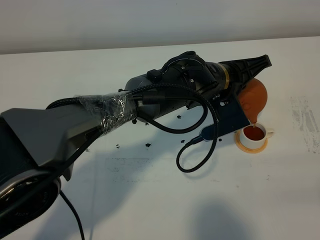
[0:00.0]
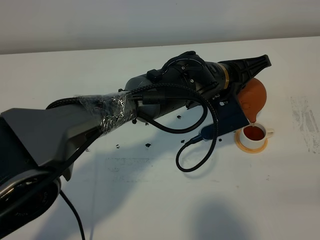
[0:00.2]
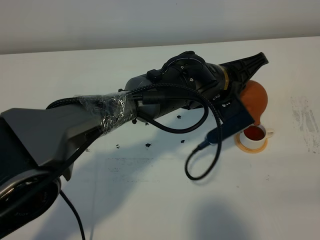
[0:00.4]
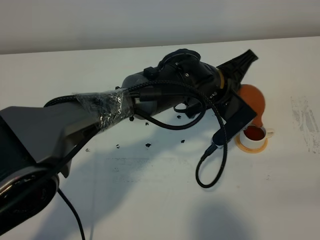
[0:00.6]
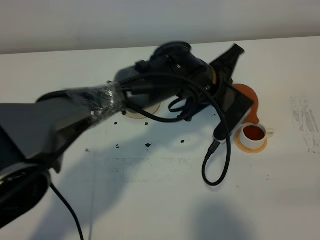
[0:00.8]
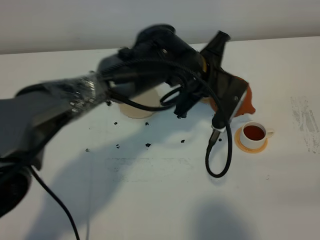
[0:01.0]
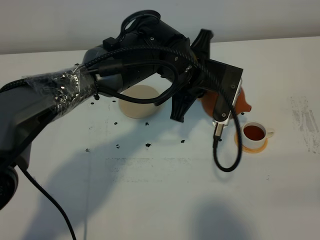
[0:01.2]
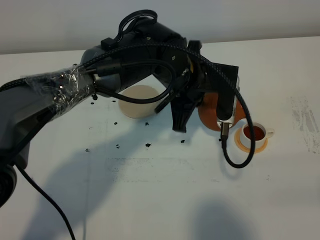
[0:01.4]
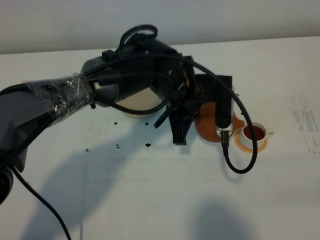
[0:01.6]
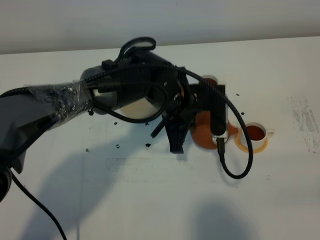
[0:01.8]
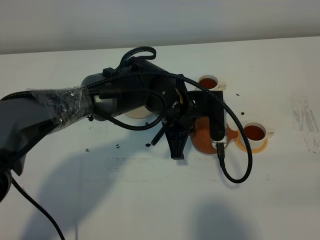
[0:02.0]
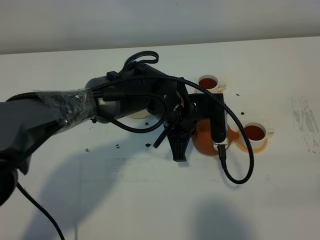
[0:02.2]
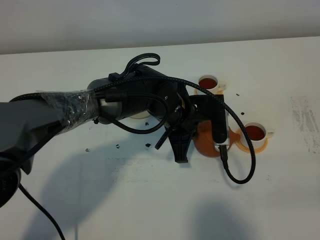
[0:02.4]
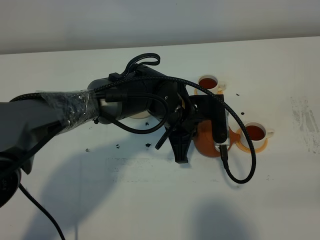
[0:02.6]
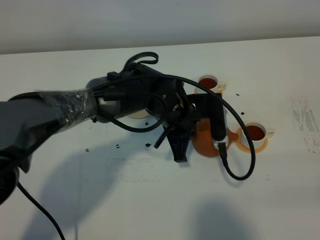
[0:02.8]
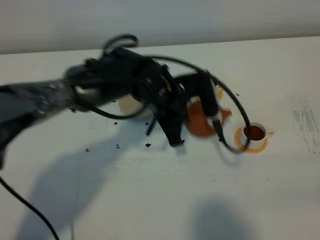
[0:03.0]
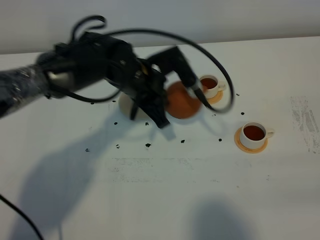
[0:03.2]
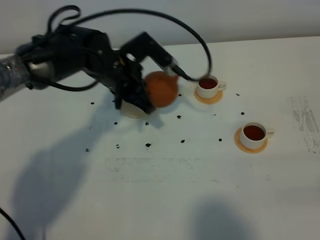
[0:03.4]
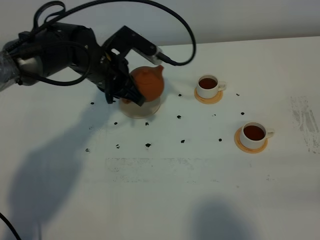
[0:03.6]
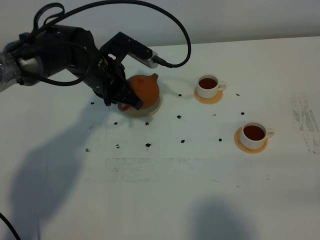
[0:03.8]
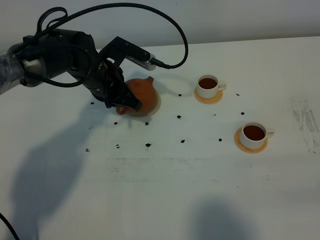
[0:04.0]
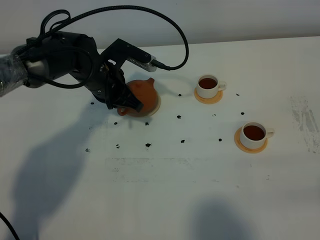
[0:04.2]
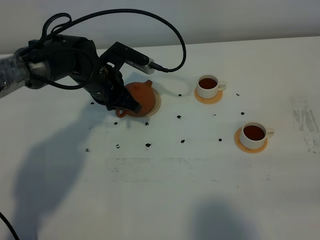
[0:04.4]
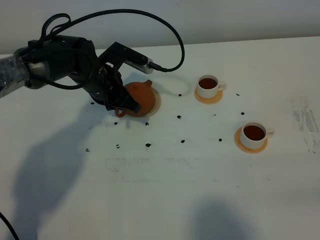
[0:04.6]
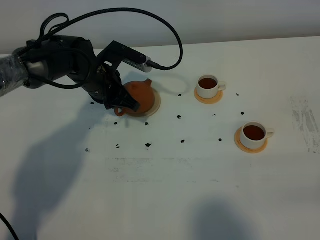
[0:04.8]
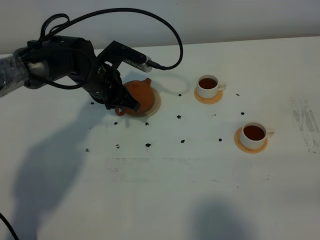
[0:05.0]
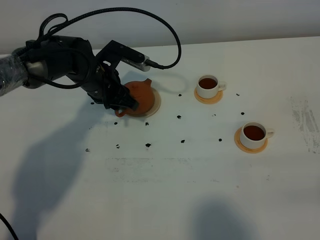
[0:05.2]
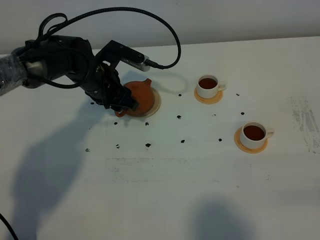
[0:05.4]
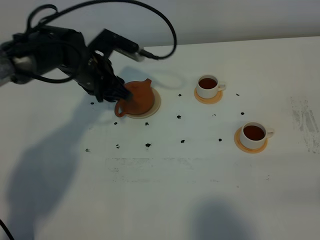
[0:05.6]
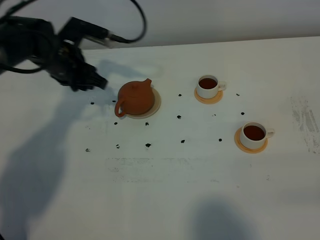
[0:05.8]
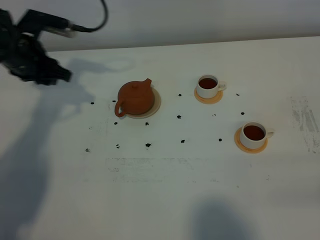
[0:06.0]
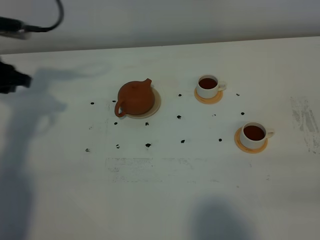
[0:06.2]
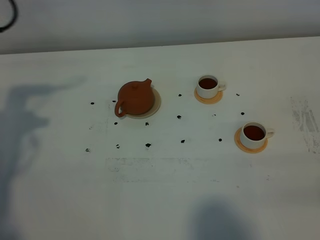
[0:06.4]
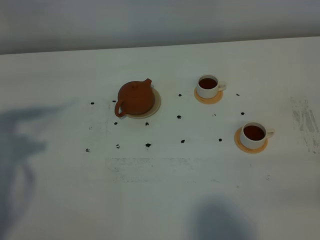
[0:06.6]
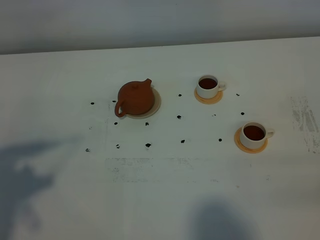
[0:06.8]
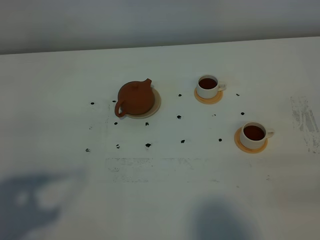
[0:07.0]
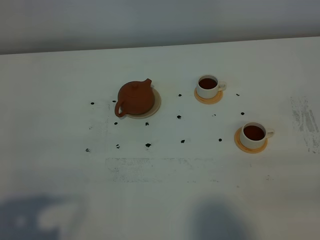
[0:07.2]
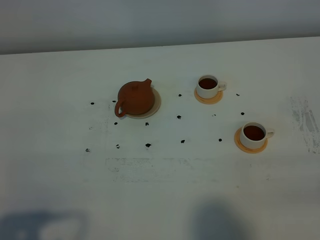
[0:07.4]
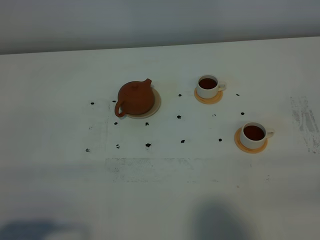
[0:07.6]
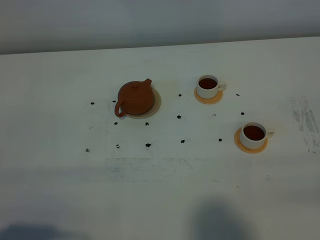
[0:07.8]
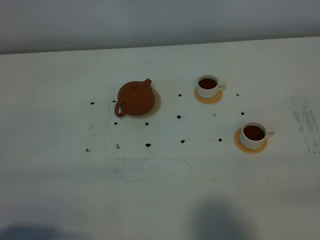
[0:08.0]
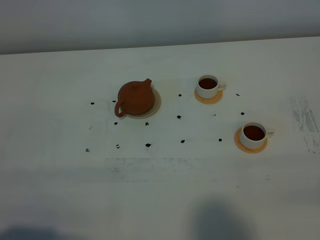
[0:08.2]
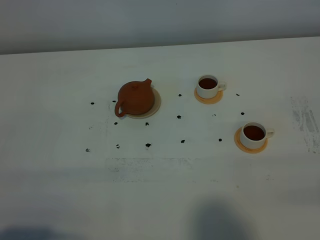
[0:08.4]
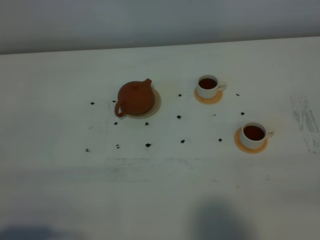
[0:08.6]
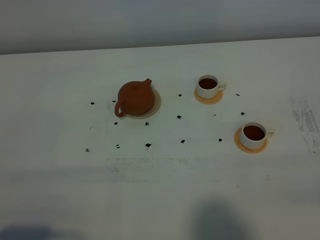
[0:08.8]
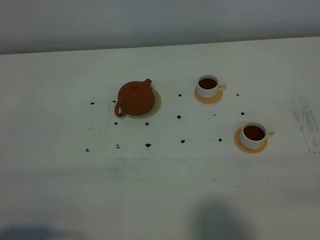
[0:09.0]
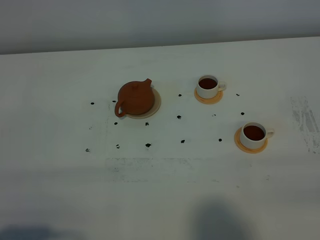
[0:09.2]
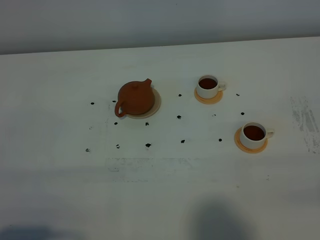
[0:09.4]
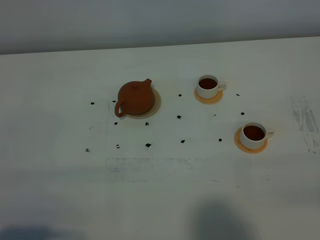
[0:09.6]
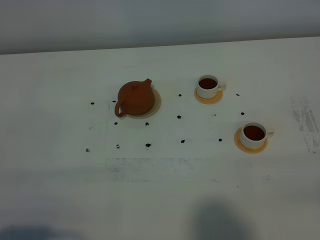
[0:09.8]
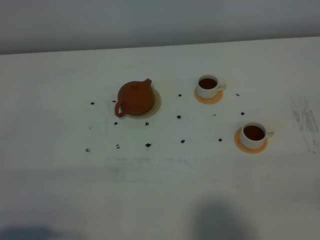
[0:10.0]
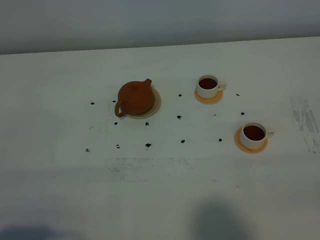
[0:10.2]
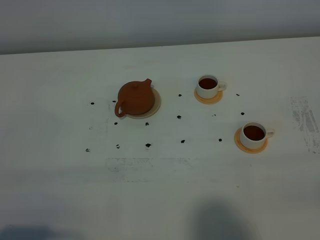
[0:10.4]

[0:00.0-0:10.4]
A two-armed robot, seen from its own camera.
Task of the whole recording: grasp the brown teapot and pour the tea into the two white teacups one by one, put the brown teapot back in its original place.
0:00.0 to 0:01.4: The left gripper shifts roughly 5 cm to the left.
0:01.4 to 0:03.0: The left gripper shifts by about 5 cm.
0:03.0 to 0:04.4: The left gripper shifts about 15 cm to the left and forward.
0:04.4 to 0:06.0: The left gripper moves to the left and upward, some 15 cm, and opens.
0:06.0 to 0:07.4: The left gripper heads backward, covering approximately 40 cm.
0:09.0 to 0:10.4: The two grippers keep their place.

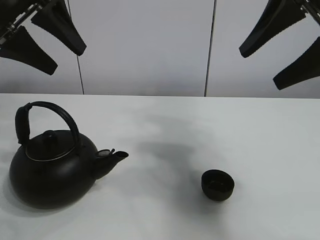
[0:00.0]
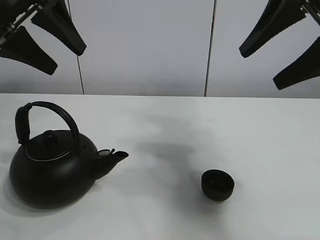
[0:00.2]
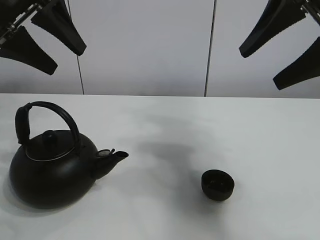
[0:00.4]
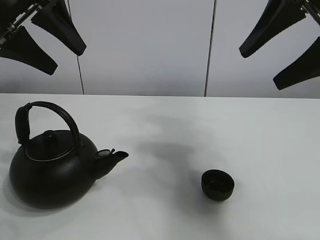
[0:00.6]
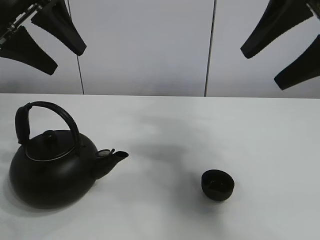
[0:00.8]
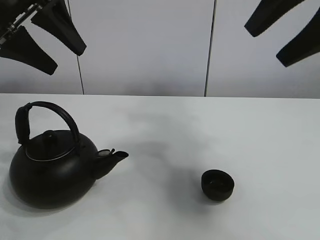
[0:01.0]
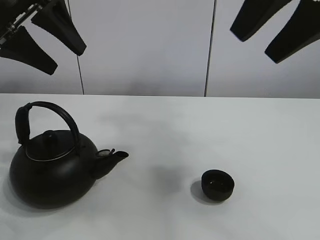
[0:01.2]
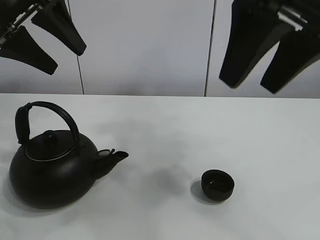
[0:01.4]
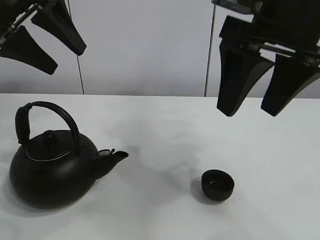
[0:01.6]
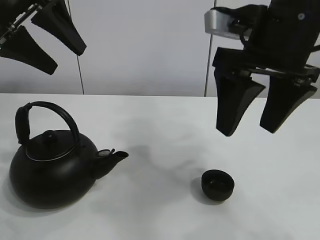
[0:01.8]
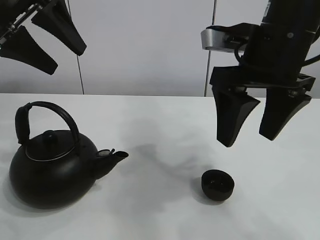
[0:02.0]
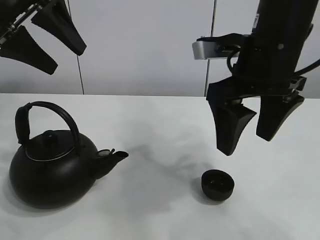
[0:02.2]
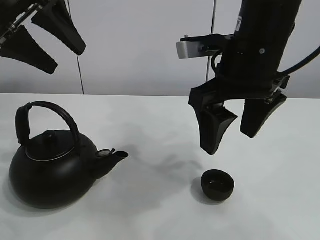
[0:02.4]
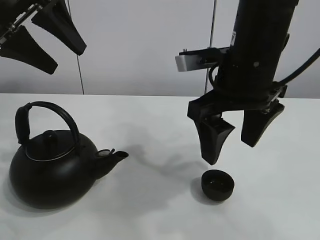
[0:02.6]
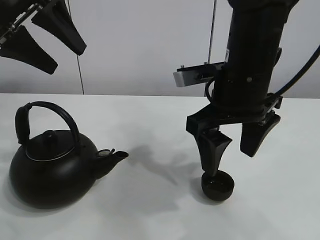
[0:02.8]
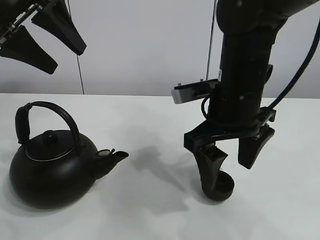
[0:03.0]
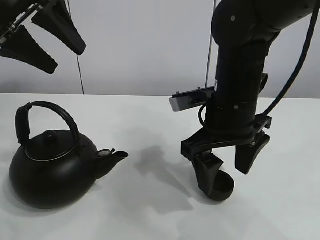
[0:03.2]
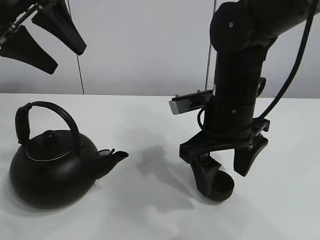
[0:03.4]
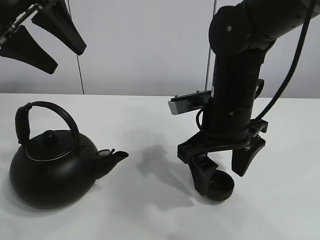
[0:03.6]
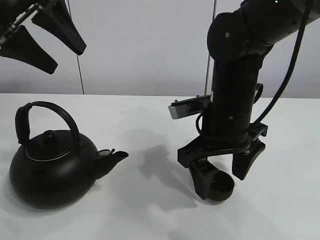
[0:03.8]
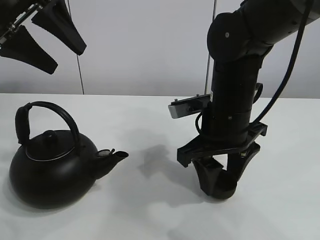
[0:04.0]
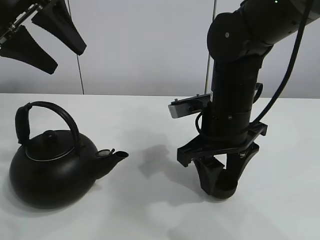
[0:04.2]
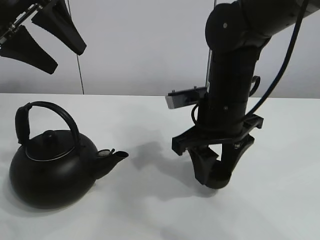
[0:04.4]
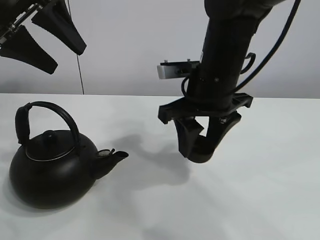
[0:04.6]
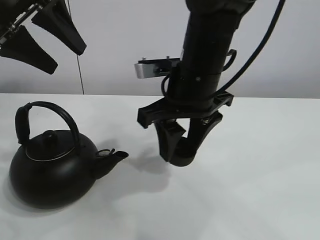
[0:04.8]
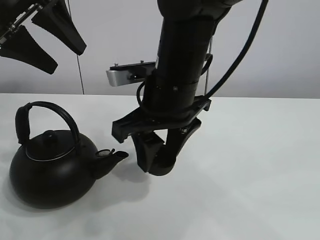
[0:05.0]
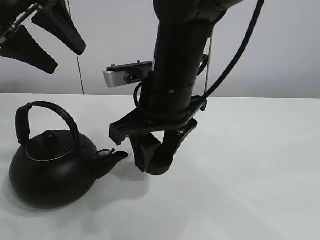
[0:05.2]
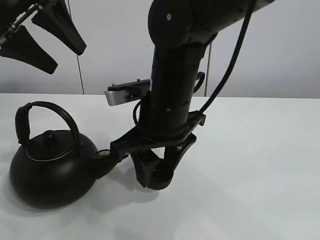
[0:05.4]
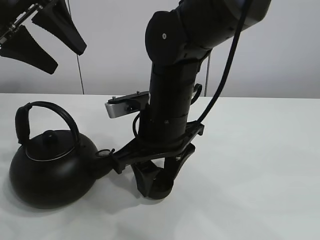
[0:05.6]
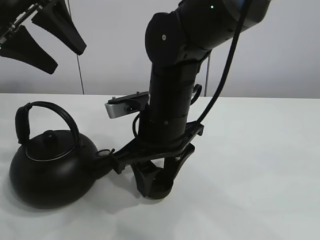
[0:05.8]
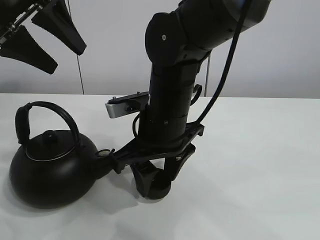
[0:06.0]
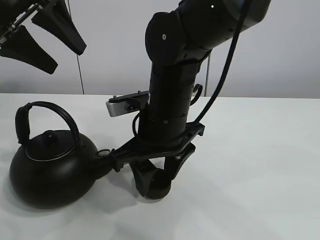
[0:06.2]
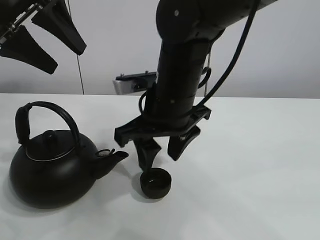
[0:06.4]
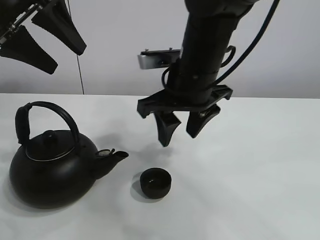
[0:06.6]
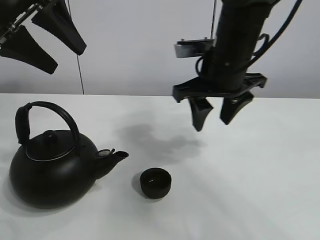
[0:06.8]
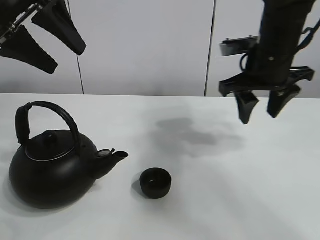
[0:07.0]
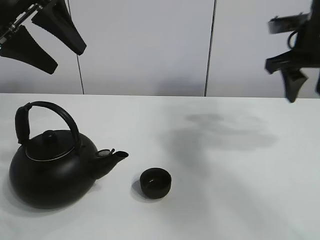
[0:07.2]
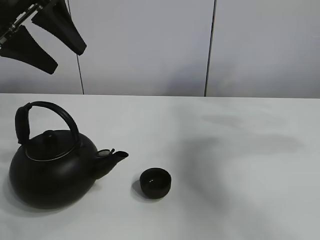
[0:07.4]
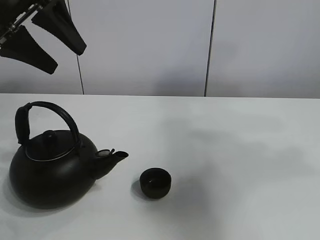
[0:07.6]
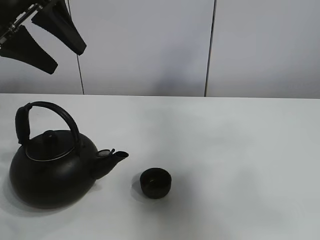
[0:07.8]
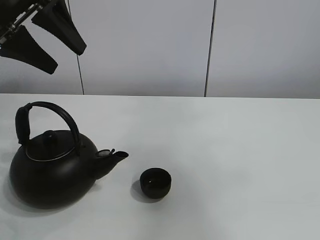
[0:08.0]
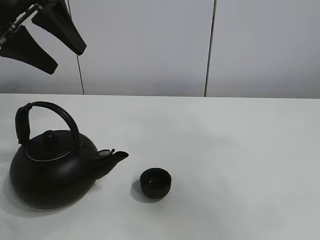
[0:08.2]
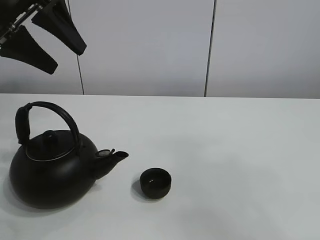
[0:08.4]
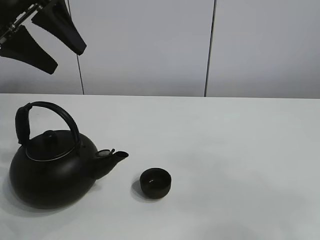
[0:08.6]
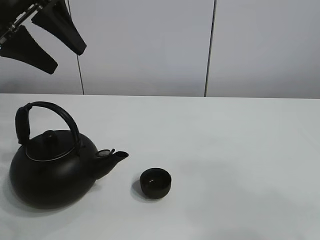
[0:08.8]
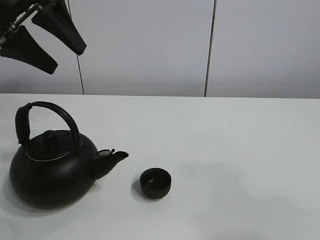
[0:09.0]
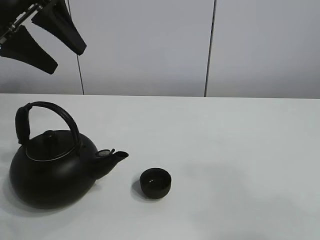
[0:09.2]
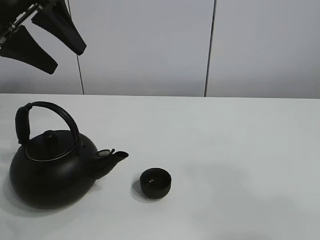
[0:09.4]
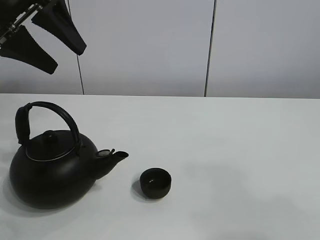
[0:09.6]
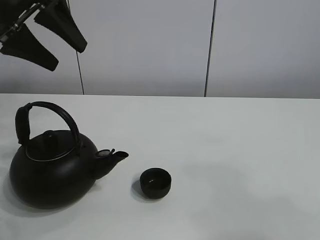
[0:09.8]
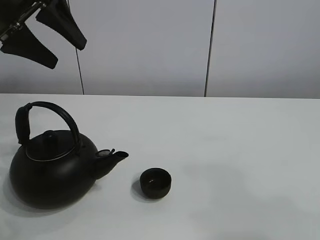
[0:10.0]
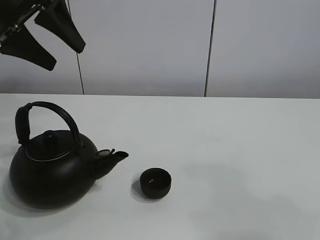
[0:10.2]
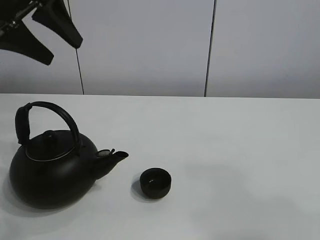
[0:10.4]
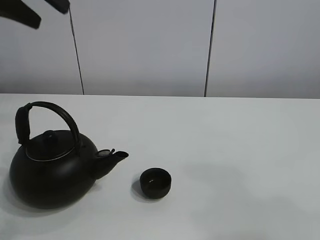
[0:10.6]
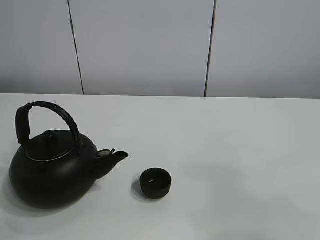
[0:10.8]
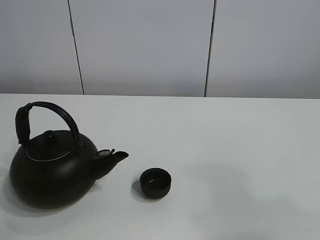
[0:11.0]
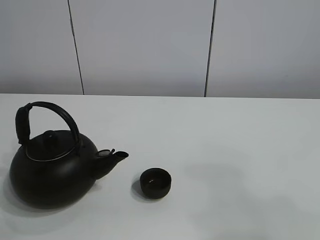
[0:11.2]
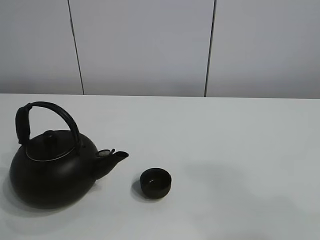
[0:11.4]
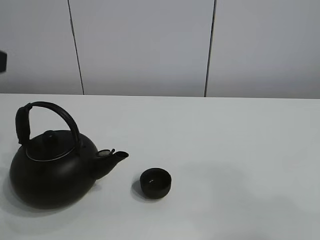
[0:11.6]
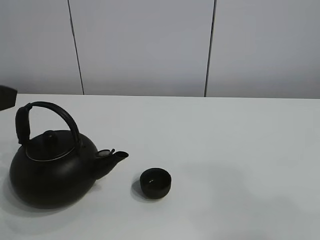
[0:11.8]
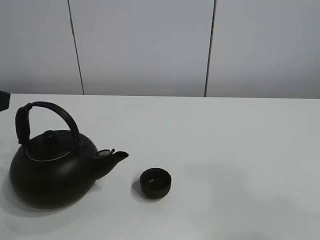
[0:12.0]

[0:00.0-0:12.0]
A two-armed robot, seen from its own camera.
Task of the whole recording: pour tea into the teacup.
Step, 0:00.0 to 0:04.2: Pick up the teacup with the right gripper.
Step, 0:04.4 to 0:06.2: Place the teacup in the center of view with the right gripper.
0:01.6 to 0:03.0: The right gripper heads downward, covering about 10 cm.
0:03.0 to 0:04.4: The right gripper closes its fingers.
0:04.4 to 0:06.0: The right gripper goes about 10 cm to the left.
0:06.0 to 0:07.6: The right gripper goes about 40 cm to the right and upward.
0:07.6 to 0:09.0: The right gripper shifts roughly 30 cm backward and downward.
0:09.0 to 0:10.4: The grippers stay close to where they were, moving slightly.
0:10.4 to 0:12.0: The left gripper heads backward and downward, covering approximately 20 cm.
